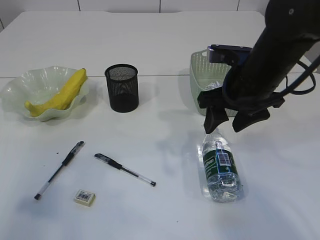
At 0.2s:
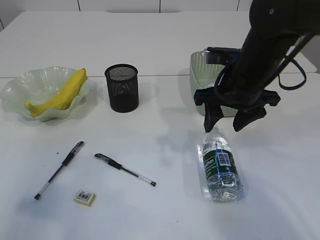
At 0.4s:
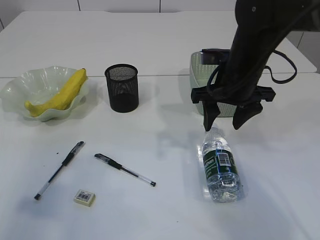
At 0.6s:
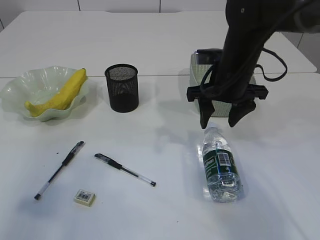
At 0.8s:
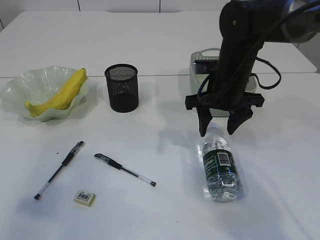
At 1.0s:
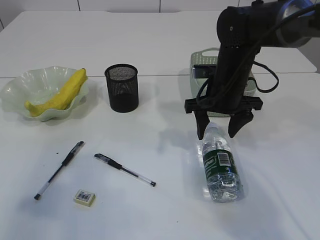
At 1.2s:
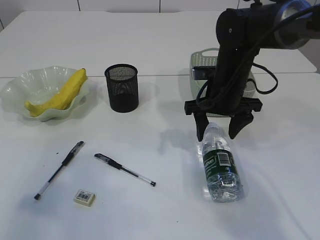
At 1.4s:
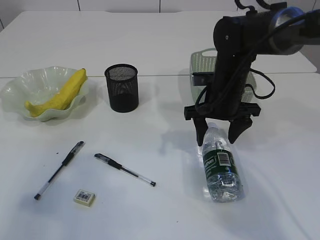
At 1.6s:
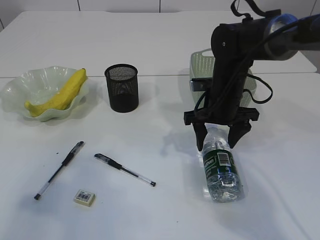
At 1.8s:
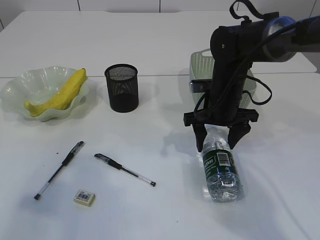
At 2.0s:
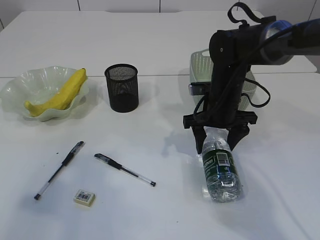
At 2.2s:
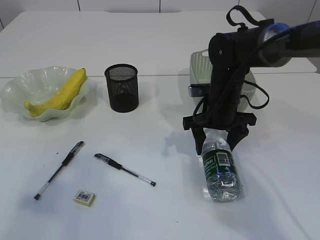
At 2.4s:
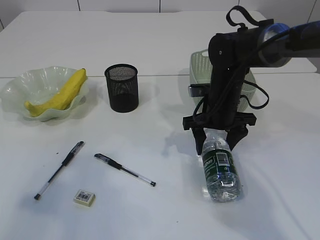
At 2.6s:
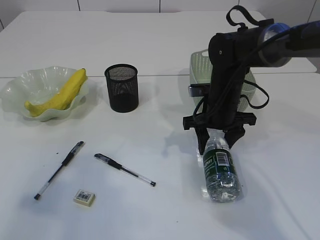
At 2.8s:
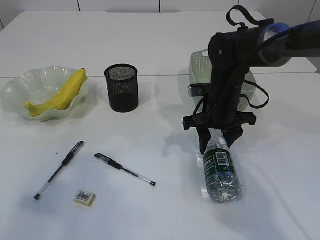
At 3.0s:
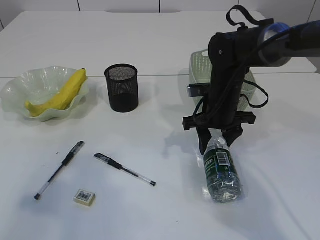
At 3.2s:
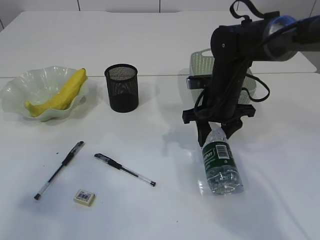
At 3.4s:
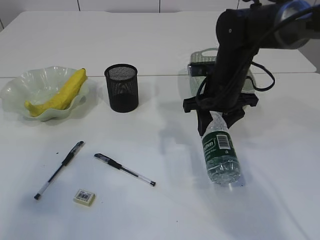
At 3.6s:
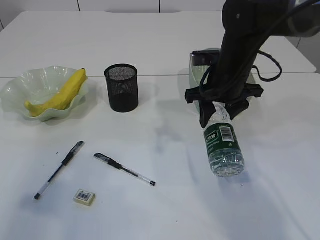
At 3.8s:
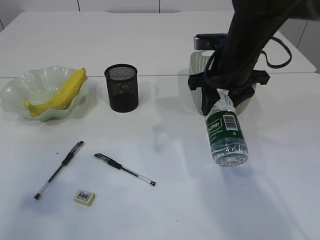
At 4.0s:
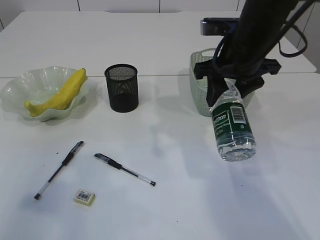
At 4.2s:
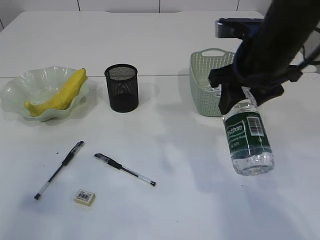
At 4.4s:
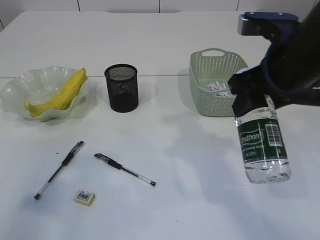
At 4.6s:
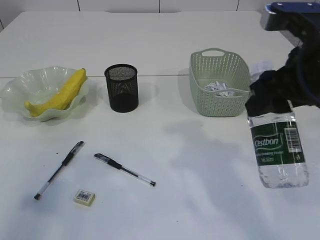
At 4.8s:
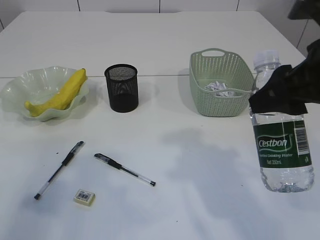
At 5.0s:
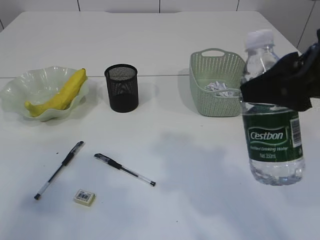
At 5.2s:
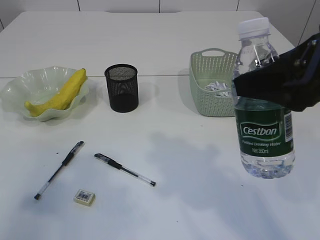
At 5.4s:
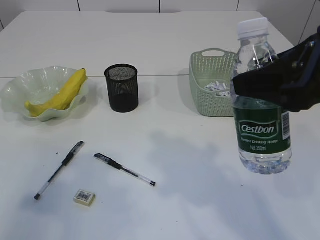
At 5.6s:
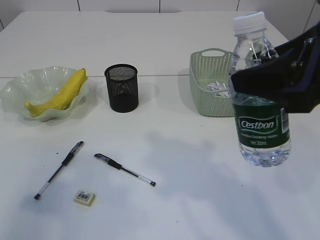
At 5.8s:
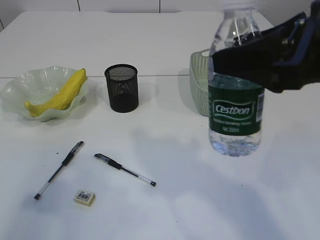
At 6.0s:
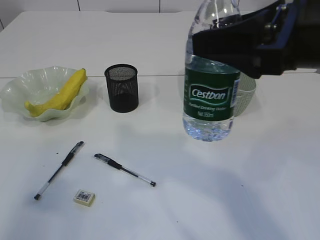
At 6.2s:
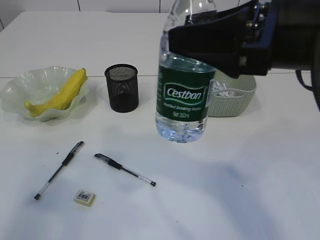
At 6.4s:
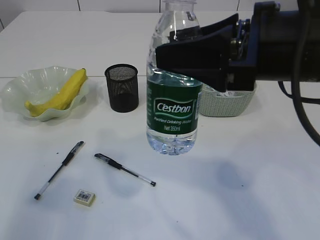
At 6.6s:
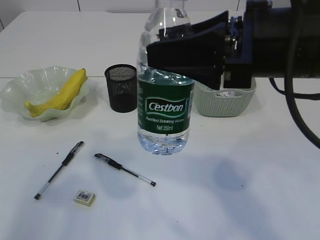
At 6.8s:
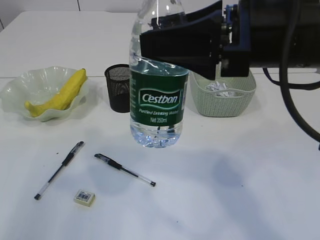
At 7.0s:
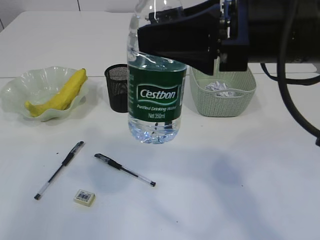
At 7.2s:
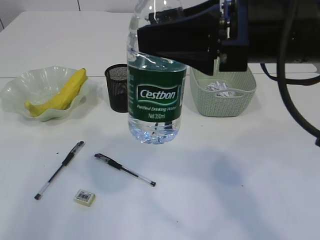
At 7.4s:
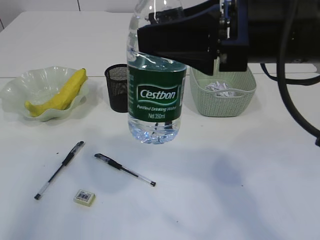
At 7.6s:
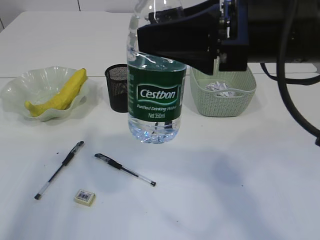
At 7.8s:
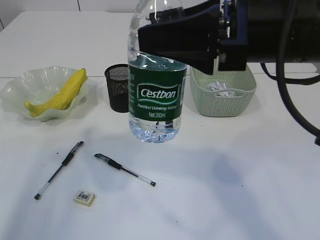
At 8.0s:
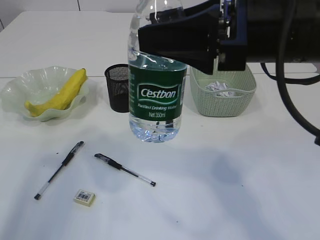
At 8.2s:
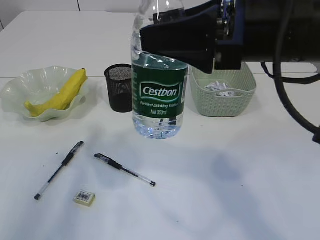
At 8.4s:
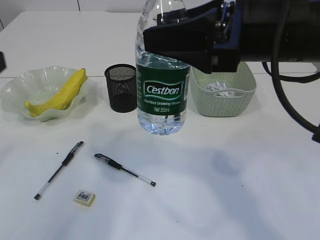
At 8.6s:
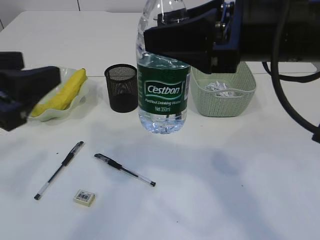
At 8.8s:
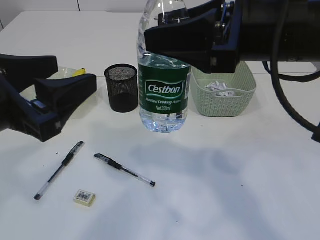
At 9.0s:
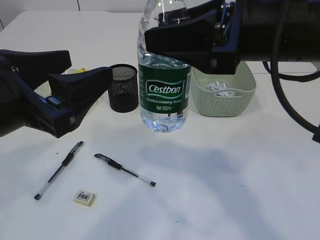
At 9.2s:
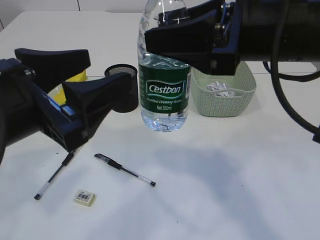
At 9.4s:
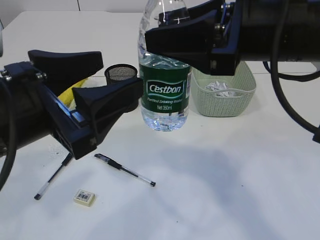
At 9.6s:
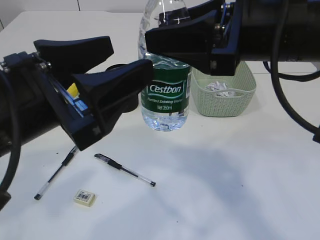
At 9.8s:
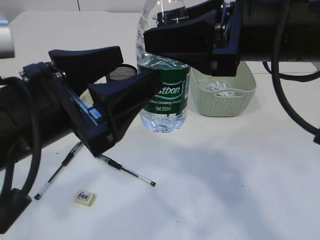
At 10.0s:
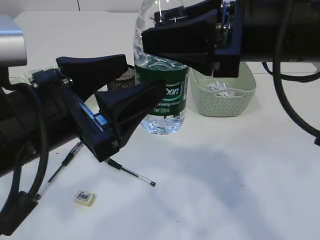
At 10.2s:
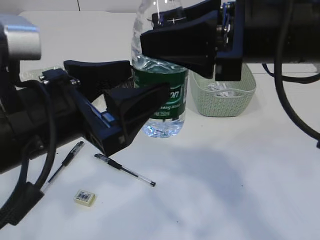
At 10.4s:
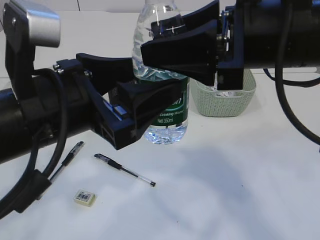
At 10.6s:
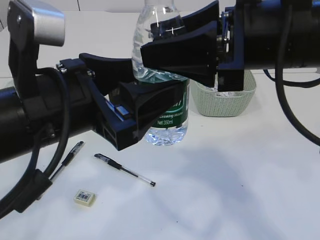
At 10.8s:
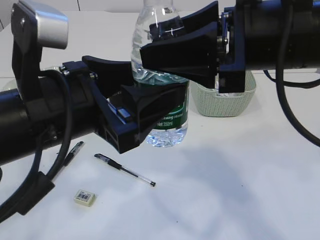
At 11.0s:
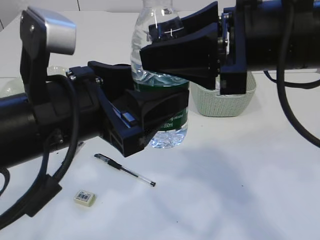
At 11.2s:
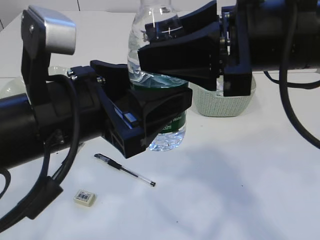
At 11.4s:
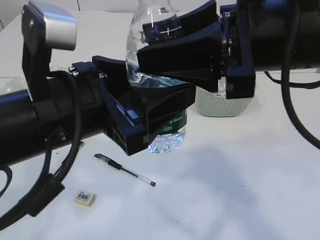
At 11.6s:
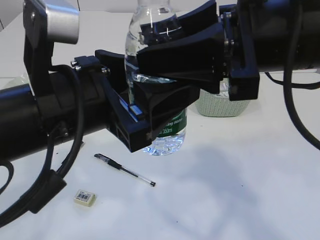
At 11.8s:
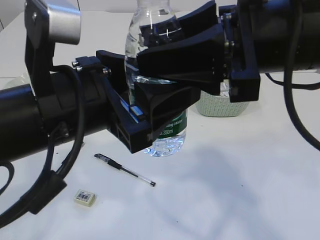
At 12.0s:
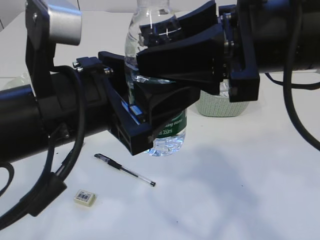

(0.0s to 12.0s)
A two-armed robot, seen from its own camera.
Step, 0.0s - 3.8s: Pick up the bottle with the right arm.
0.0s - 1.6s: The right gripper goes some 10 cm downward and forward.
1.6s - 3.0s: The right gripper closes its fingers.
3.0s - 4.4s: The right gripper travels upward and backward by approximately 20 cm.
4.4s - 6.0s: The right gripper travels backward and upward by roughly 10 cm.
7.6s - 9.0s: The left gripper moves to the right and downward, about 15 cm, and opens.
9.0s - 10.4s: The left gripper moves to the right, roughly 5 cm.

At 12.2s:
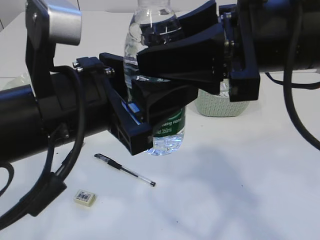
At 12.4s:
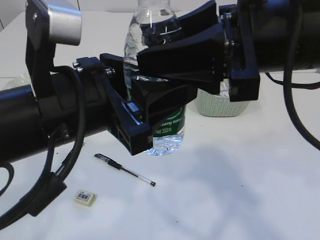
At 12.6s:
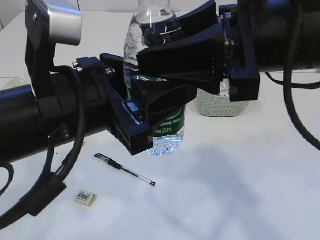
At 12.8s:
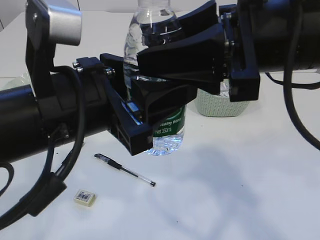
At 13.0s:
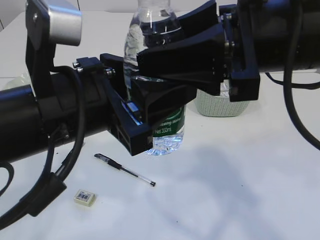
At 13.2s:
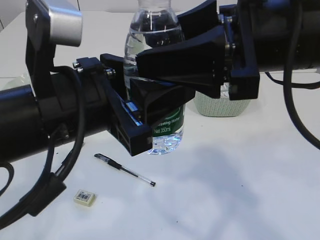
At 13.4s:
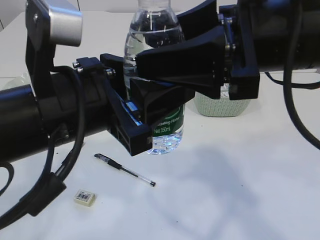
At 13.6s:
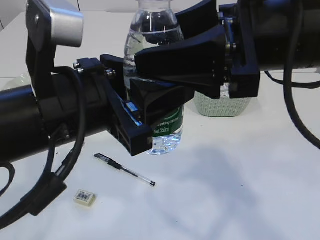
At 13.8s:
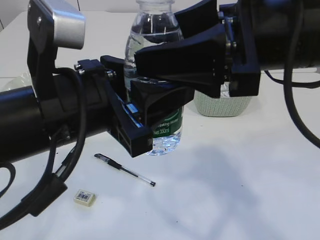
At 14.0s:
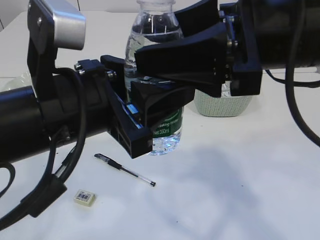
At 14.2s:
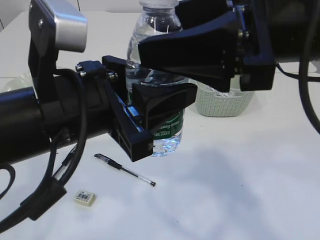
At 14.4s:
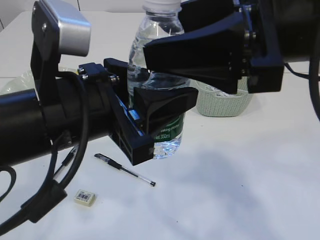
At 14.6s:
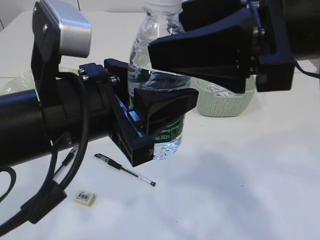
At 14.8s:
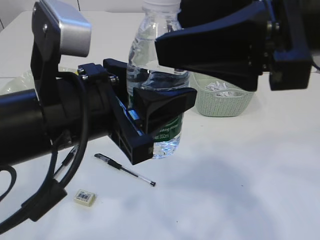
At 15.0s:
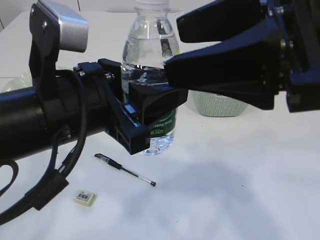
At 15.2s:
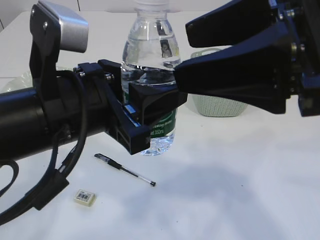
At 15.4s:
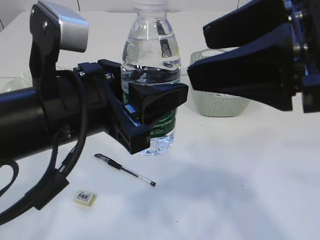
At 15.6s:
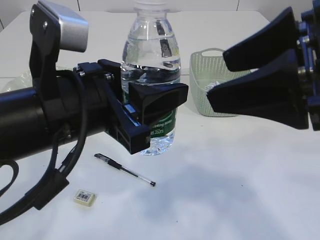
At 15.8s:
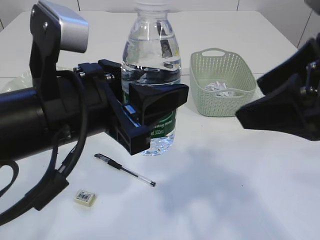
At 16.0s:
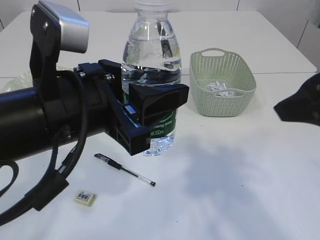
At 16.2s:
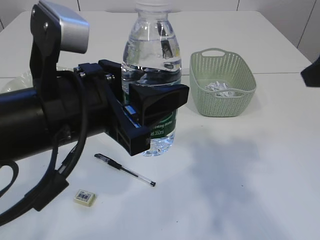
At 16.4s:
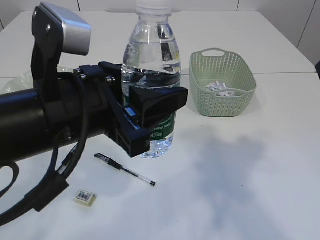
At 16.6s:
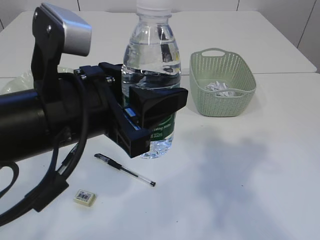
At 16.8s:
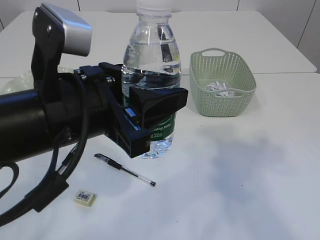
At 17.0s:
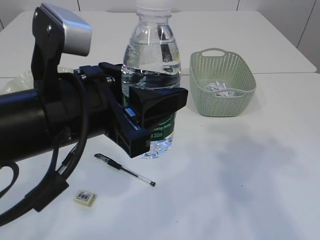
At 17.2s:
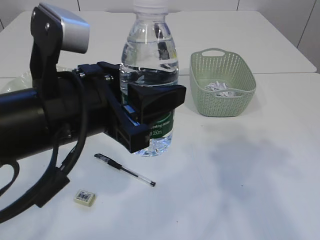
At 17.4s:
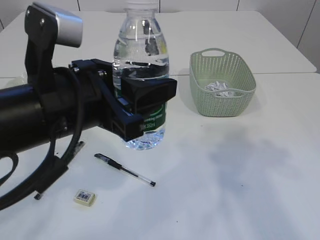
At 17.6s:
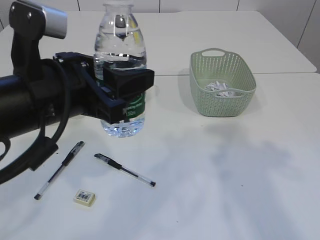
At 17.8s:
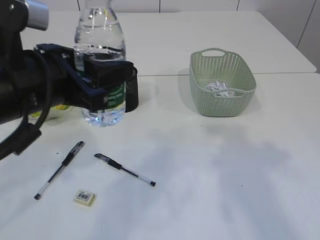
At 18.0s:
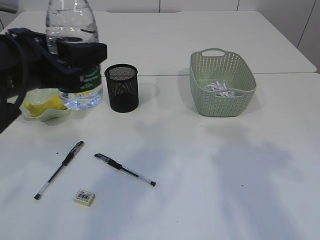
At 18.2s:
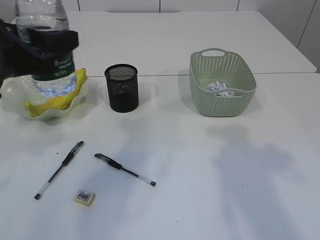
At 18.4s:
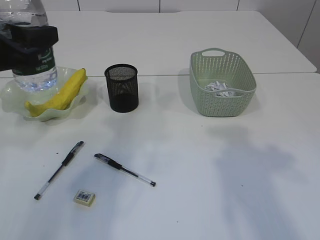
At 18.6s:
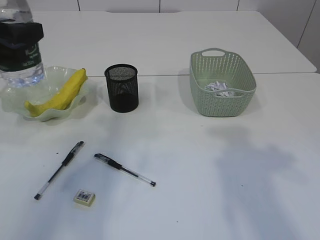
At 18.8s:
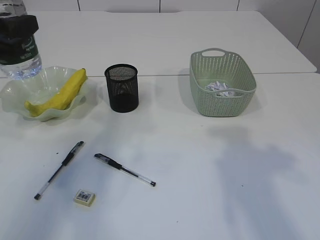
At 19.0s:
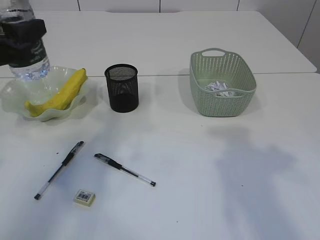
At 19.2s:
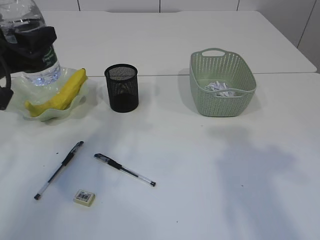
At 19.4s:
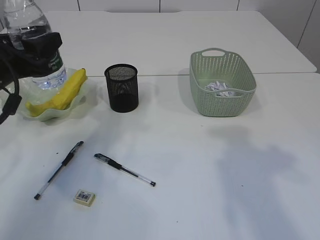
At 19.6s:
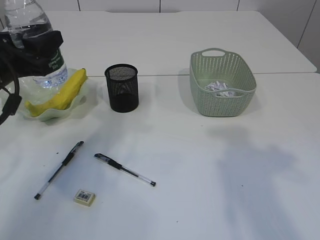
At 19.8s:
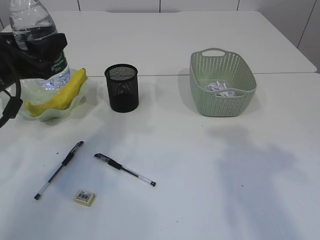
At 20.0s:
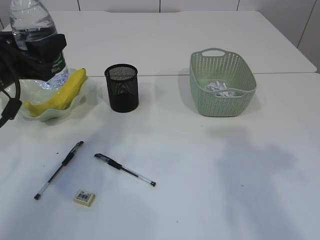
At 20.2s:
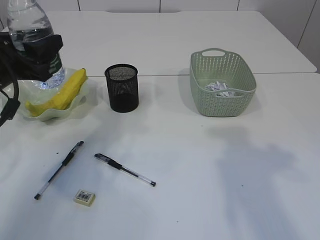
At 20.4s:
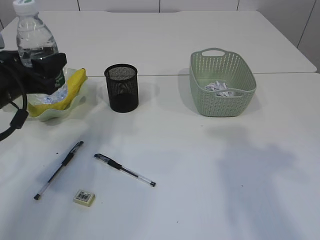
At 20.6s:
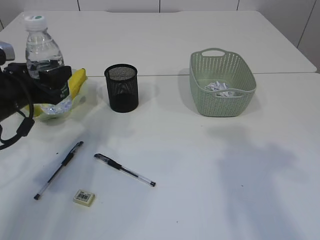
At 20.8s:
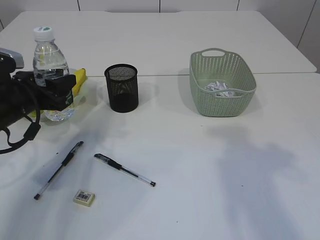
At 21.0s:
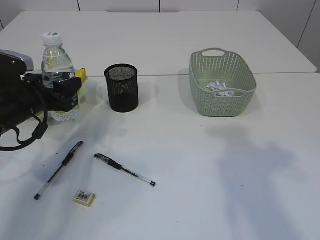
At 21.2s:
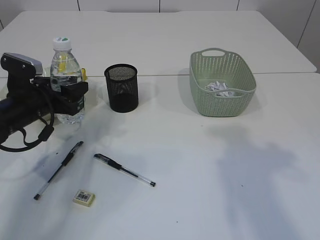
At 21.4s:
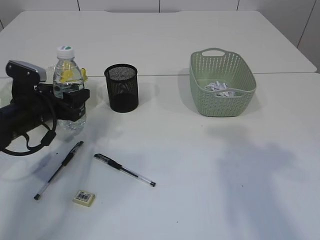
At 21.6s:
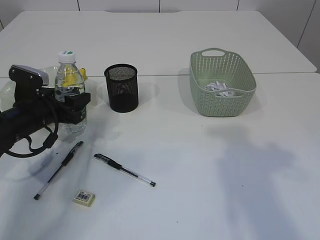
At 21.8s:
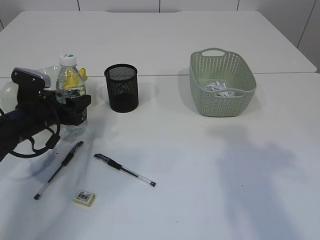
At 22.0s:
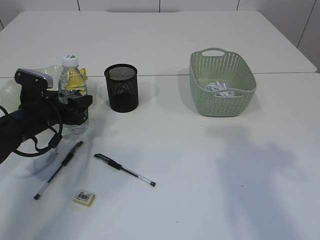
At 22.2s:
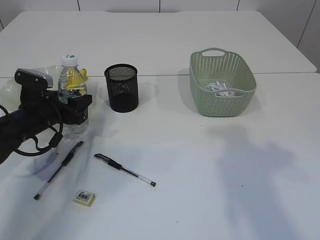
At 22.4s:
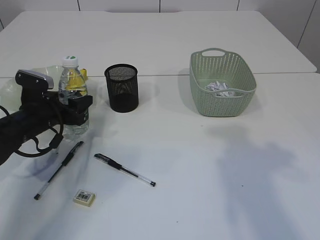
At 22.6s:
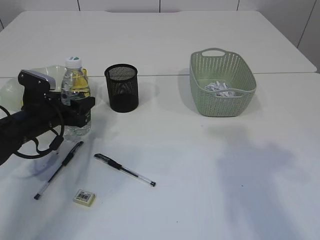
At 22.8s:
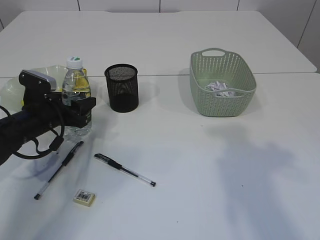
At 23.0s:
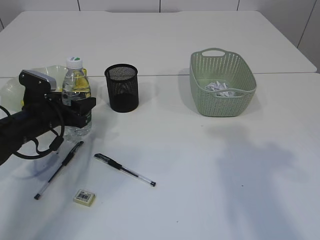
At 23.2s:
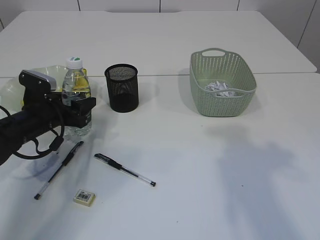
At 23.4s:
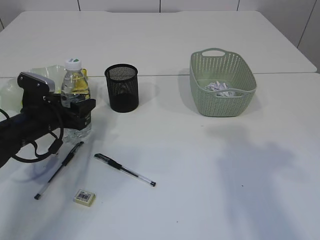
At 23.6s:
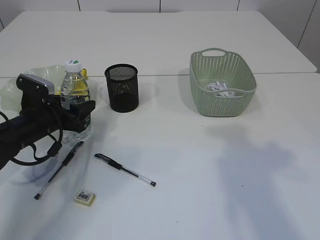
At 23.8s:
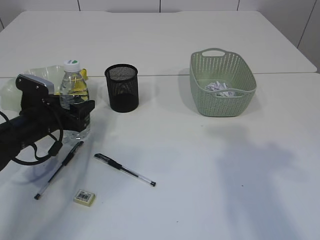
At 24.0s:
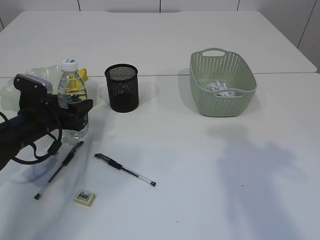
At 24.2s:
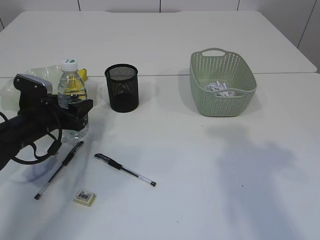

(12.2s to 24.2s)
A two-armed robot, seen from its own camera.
Step, 12.2s - 15.2s: transfer the bottle to the left arm.
12.2s - 13.8s: Both grippers stay put.
13.8s - 15.2s: The right gripper ends up about 5 cm from where it was.
15.2s - 16.6s: The right gripper heads to the right, covering about 10 cm.
16.6s - 18.2s: The left gripper travels to the left and forward by about 10 cm.
18.2s - 19.8s: The left gripper travels forward and downward by roughly 10 cm.
19.8s - 21.2s: The left gripper is displaced downward and forward by roughly 10 cm.
21.2s - 22.6s: The grippers stay close to where they were, moving slightly.
22.6s - 24.2s: Neither gripper changes place.
